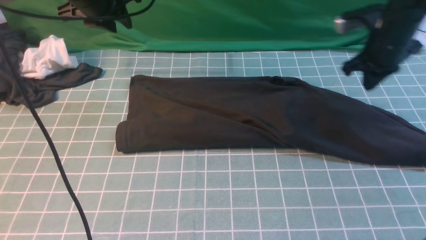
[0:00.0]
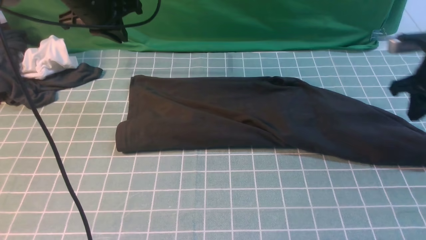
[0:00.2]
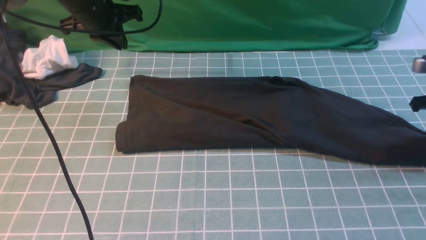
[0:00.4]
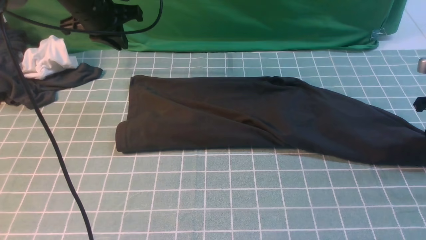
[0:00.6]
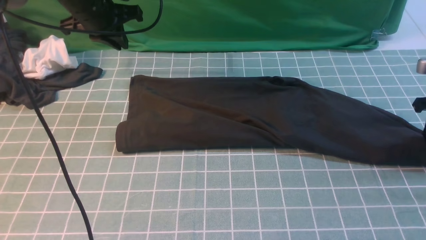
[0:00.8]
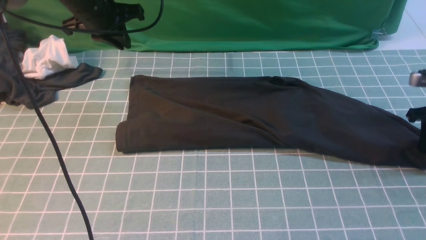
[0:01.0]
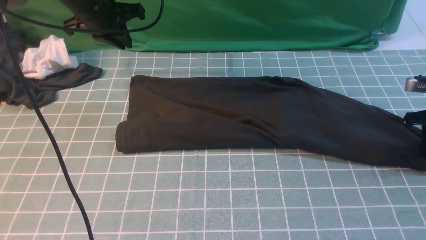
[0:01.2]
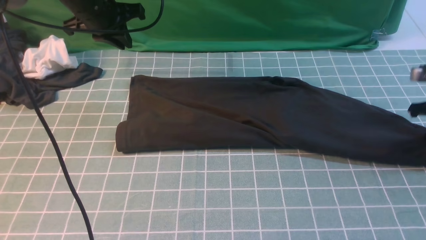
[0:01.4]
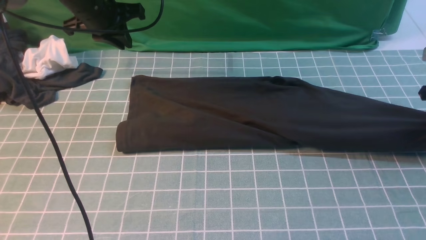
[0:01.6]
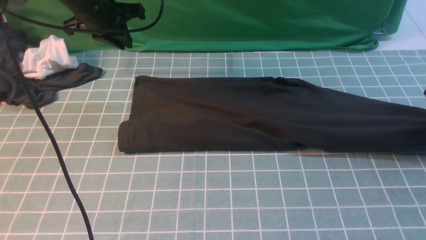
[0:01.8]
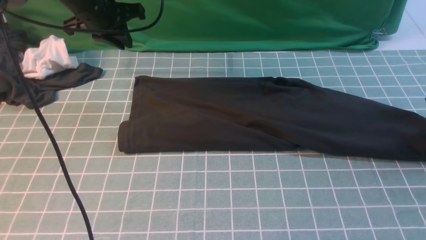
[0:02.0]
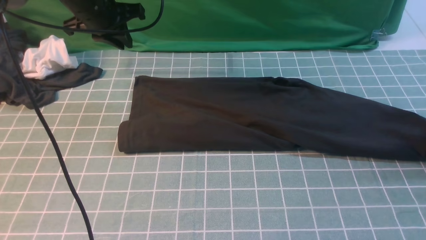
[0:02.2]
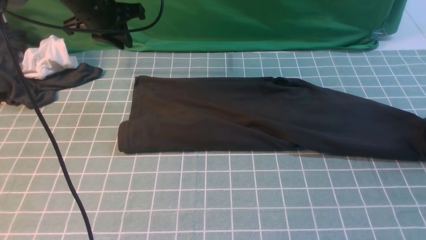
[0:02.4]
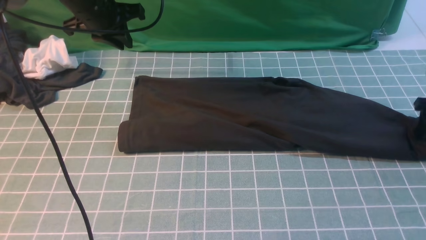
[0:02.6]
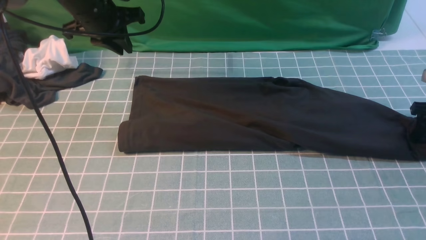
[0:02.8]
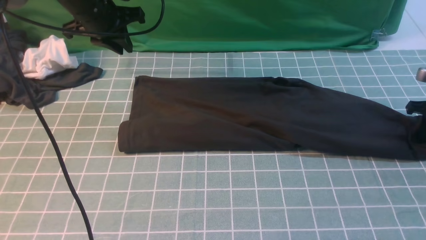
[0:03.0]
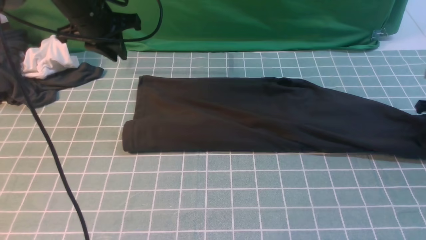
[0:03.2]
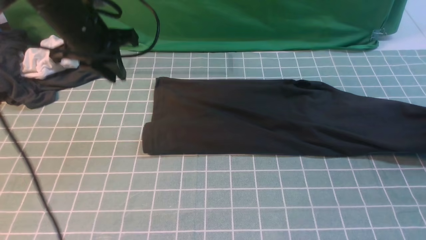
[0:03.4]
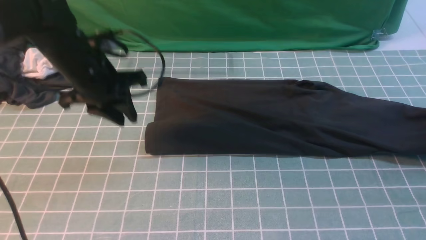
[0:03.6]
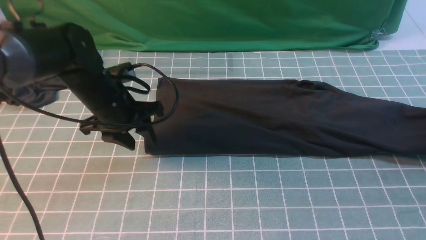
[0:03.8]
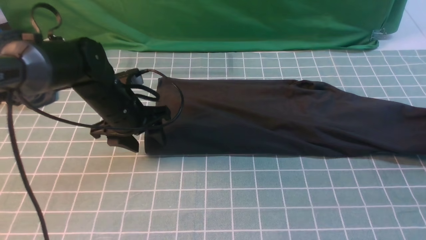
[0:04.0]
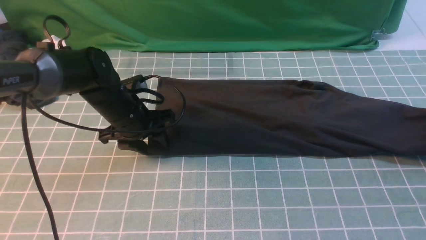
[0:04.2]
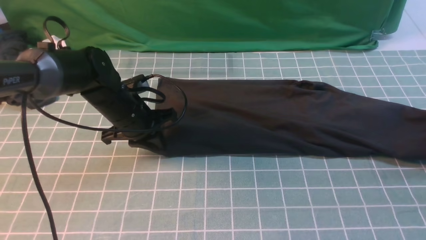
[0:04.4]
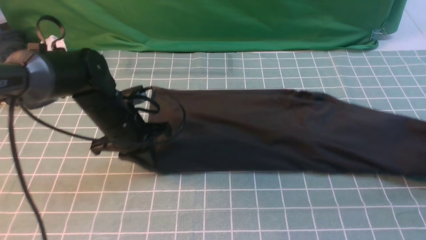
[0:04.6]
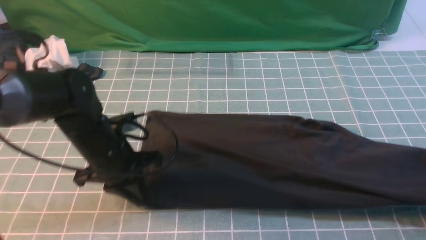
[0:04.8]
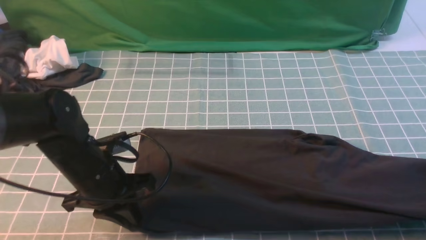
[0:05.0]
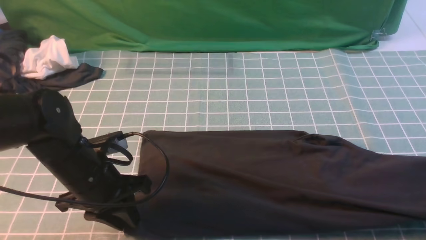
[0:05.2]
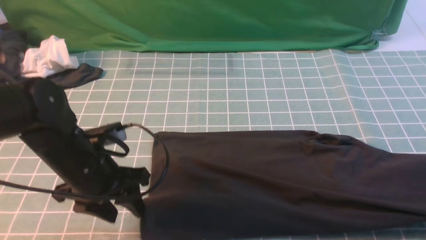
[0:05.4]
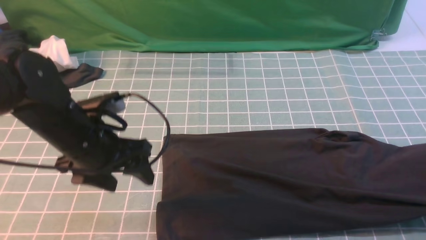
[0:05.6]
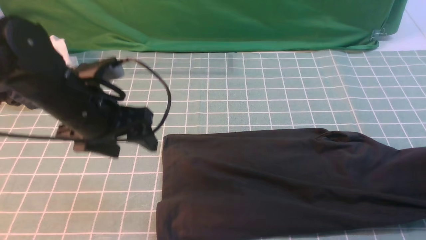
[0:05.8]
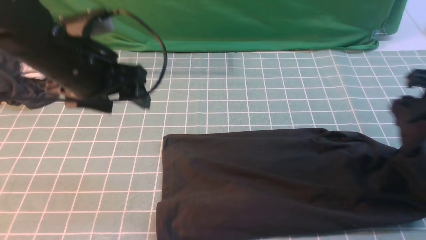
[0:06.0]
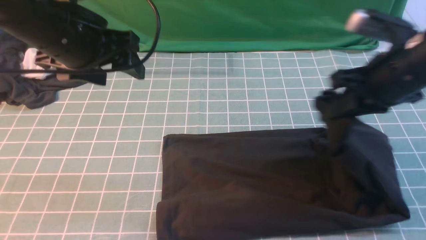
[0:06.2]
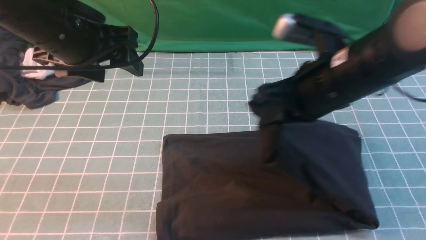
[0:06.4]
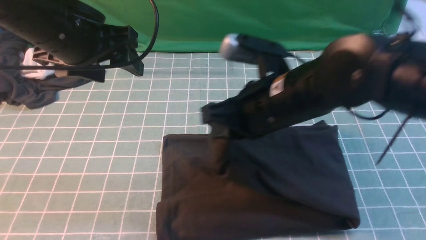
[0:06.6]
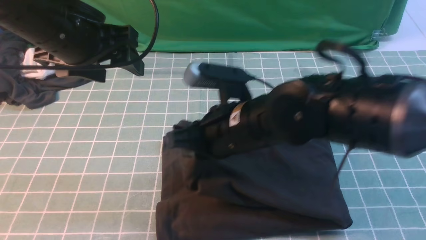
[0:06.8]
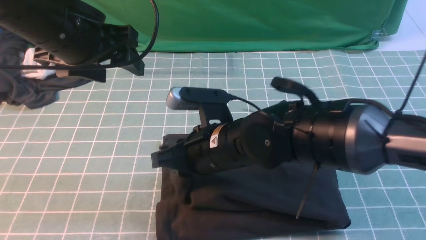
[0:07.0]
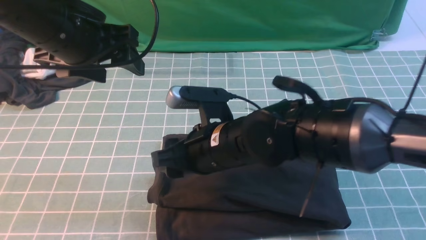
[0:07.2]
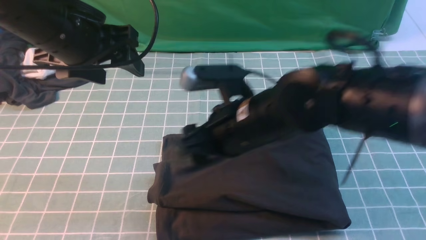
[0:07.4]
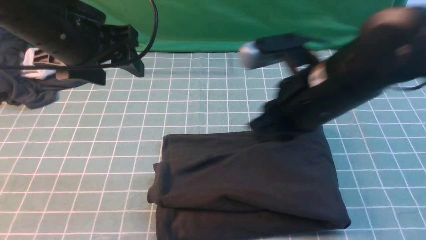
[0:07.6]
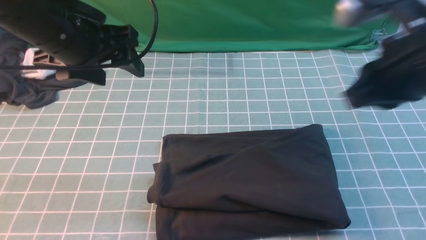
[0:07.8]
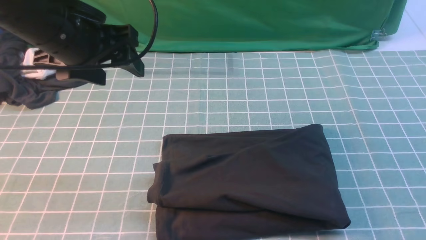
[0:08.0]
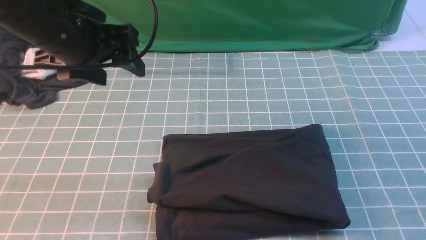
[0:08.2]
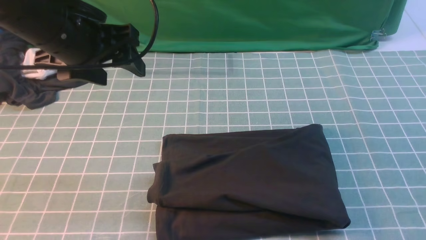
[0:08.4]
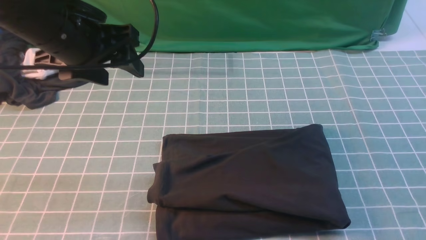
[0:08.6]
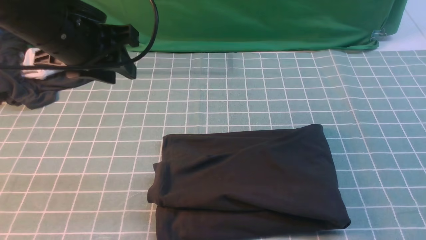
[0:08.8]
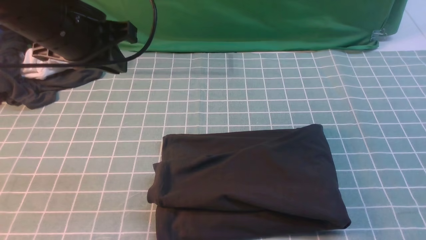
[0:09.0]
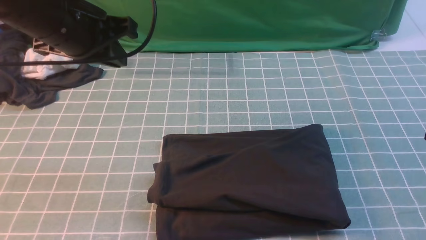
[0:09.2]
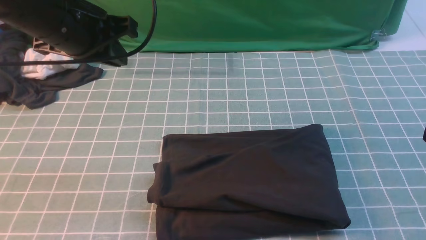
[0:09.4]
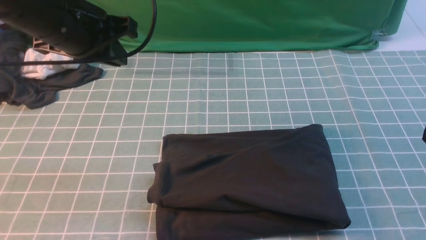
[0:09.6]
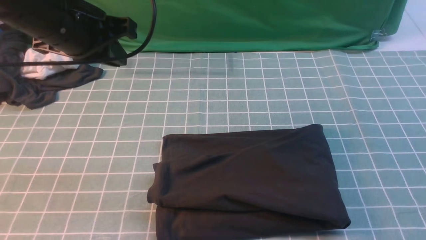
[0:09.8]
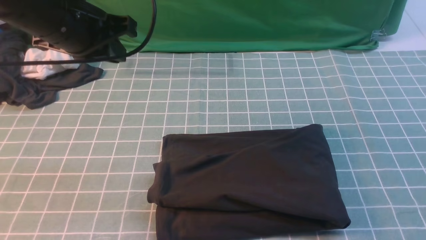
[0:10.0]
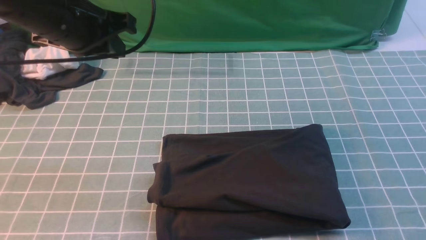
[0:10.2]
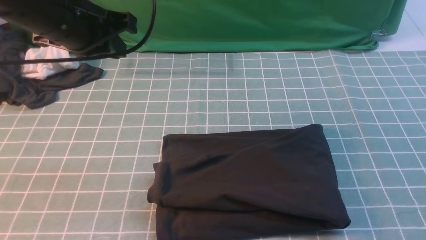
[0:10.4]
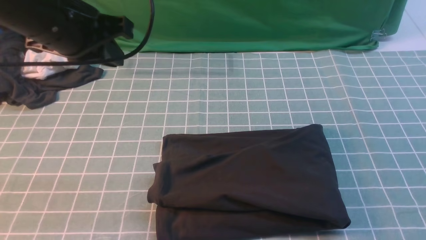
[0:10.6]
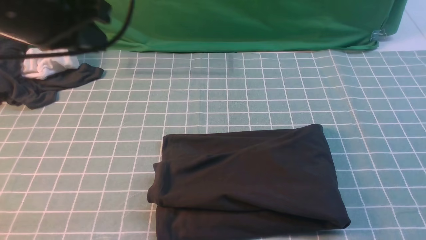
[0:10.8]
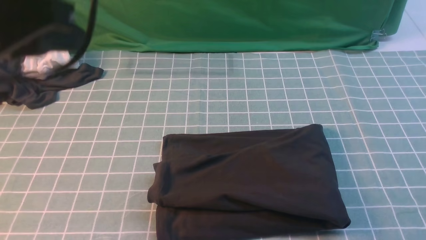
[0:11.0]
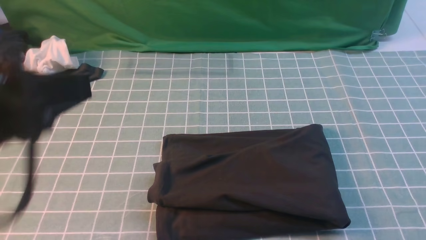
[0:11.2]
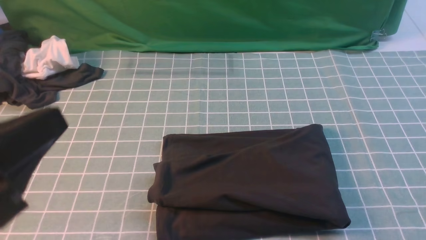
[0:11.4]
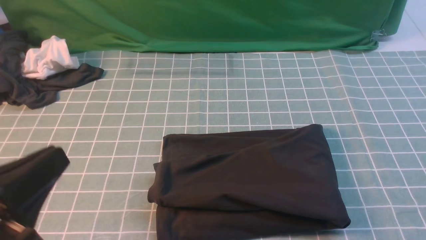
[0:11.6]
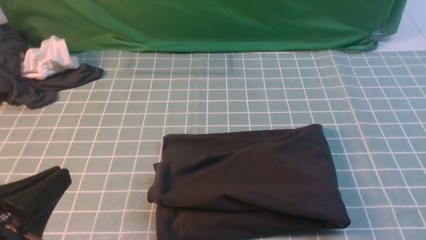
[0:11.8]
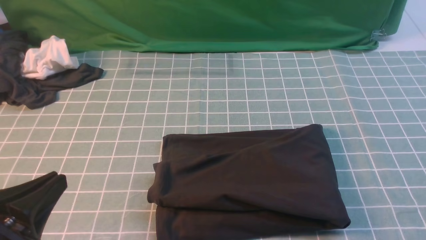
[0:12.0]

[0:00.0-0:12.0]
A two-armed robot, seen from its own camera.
Step, 0:00.0 to 0:05.2: use the right arm to clamp the right edge of the fabric.
Step, 0:05.4 to 0:07.4: use the right arm to drag the right edge of the fabric to the left and folds it over the left edge.
0:00.0 to 0:01.6: The right gripper heads to the right, covering approximately 10 cm, and opens, then closes again.
0:01.6 to 0:03.0: The right gripper is displaced downward by roughly 5 cm, and opens.
0:03.0 to 0:04.4: The left gripper moves downward and backward, roughly 15 cm, and opens and closes again; the right gripper moves approximately 5 cm, and closes up.
0:04.4 to 0:06.0: The right gripper travels to the left, upward and backward by roughly 20 cm. The left gripper shifts roughly 15 cm upward, and opens up.
0:06.0 to 0:07.6: The right gripper heads to the left, covering some 15 cm, and opens, then closes again.
0:07.6 to 0:09.0: The right gripper travels to the right and backward by about 20 cm. Meanwhile the left gripper closes its fingers.
0:10.4 to 0:12.0: The left gripper travels backward and downward by some 25 cm.

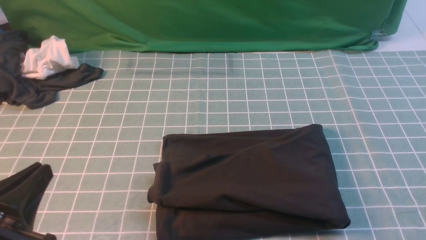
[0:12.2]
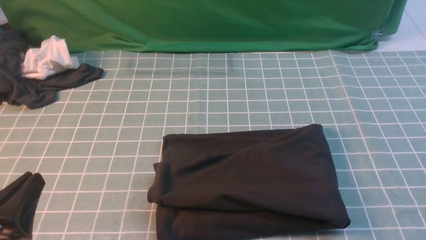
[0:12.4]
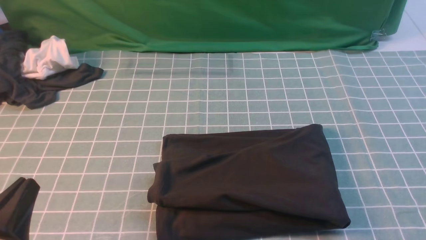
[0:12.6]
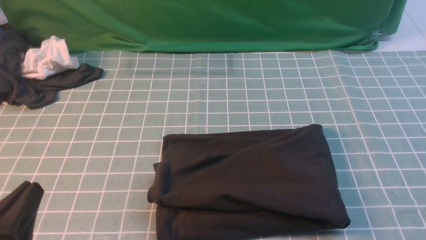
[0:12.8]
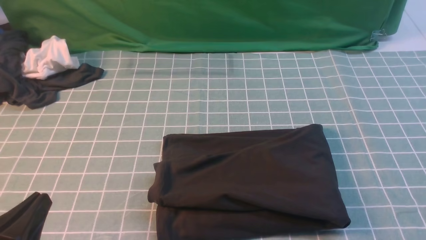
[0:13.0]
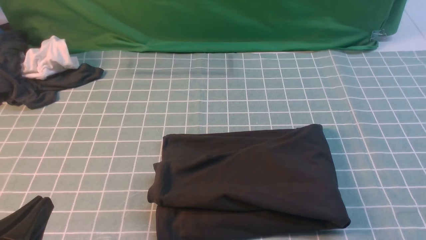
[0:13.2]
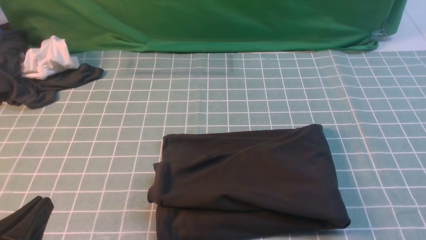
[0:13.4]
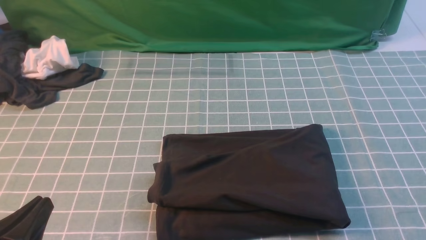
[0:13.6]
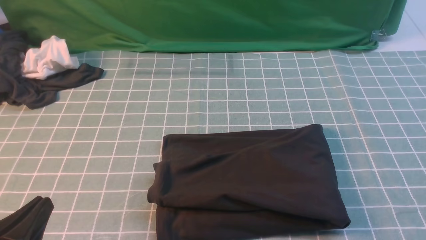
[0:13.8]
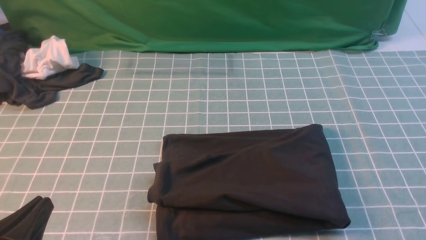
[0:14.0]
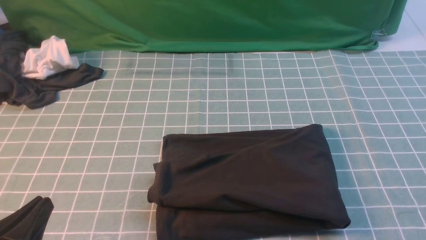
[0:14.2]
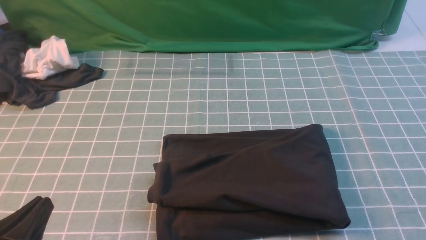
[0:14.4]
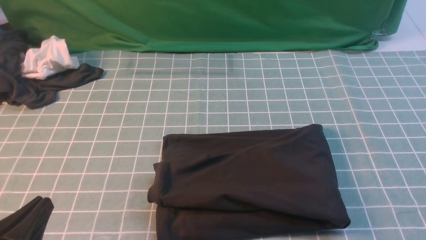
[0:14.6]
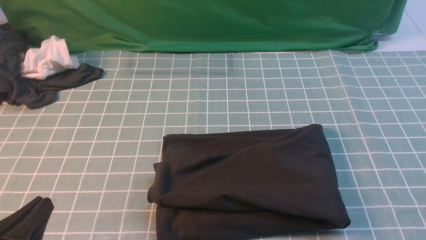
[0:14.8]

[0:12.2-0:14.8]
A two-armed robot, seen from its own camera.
0:12.2 to 0:13.4: The grippers make only small movements.
0:13.4 to 0:14.8: Both grippers stay put.
